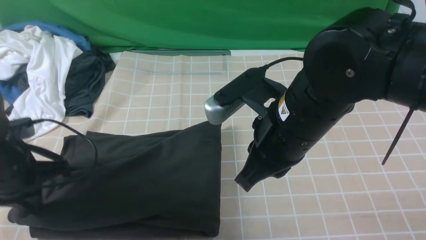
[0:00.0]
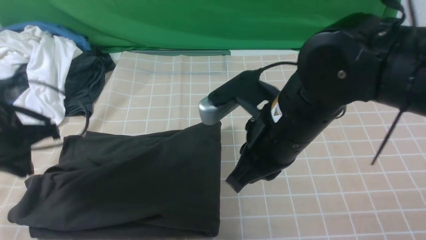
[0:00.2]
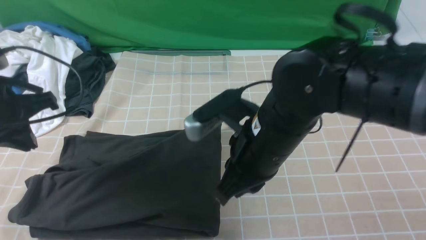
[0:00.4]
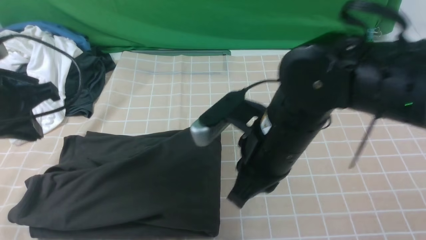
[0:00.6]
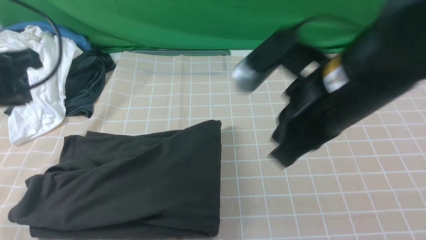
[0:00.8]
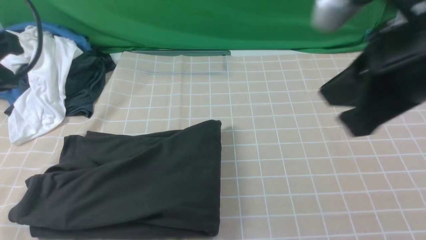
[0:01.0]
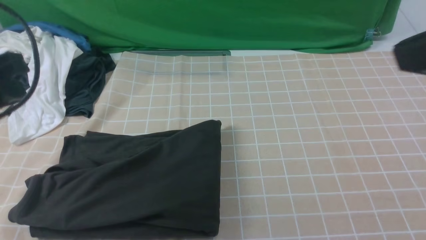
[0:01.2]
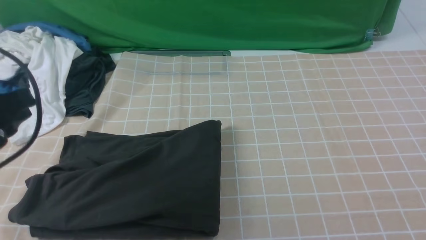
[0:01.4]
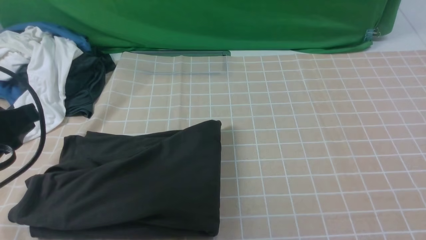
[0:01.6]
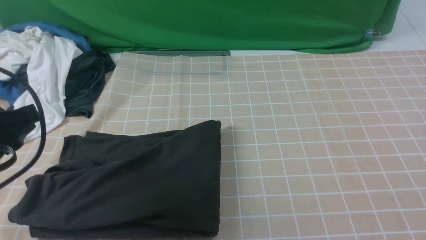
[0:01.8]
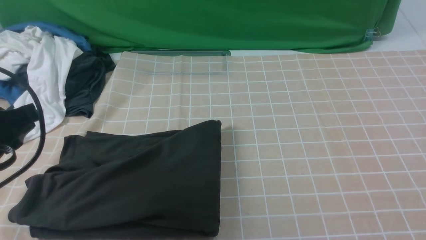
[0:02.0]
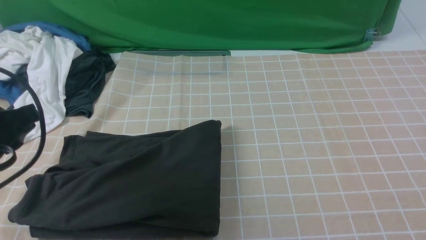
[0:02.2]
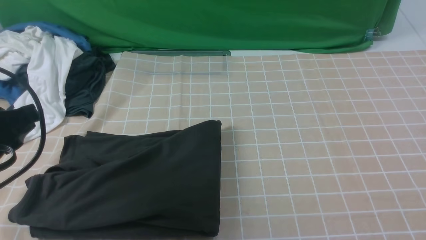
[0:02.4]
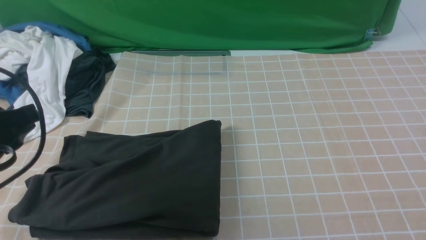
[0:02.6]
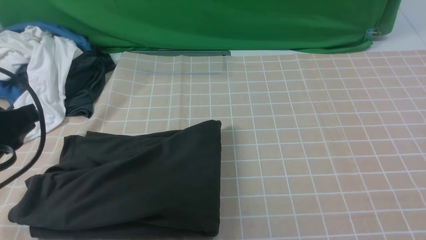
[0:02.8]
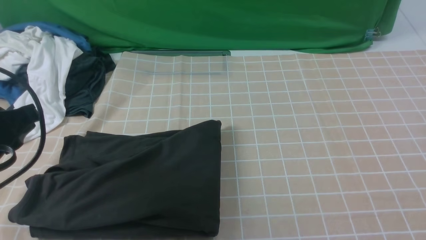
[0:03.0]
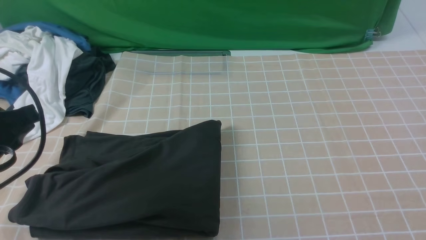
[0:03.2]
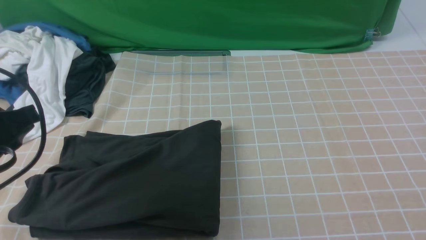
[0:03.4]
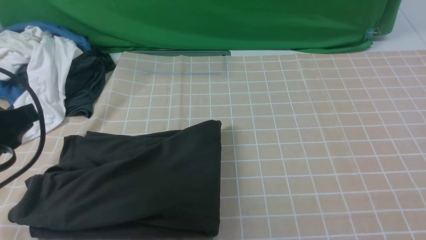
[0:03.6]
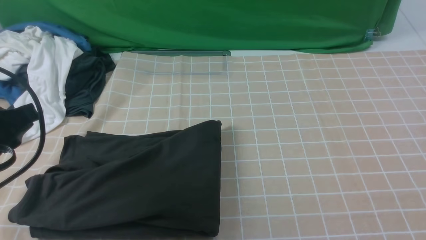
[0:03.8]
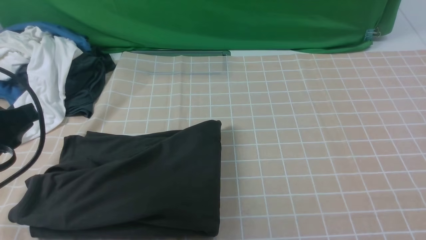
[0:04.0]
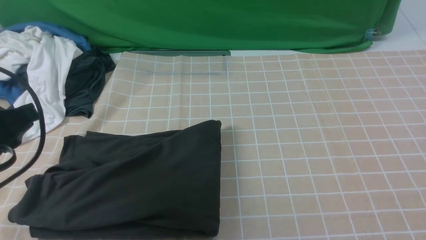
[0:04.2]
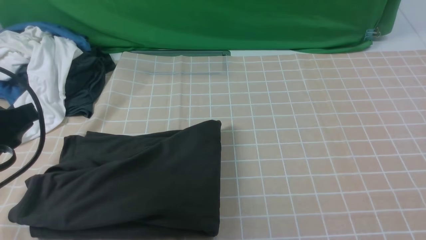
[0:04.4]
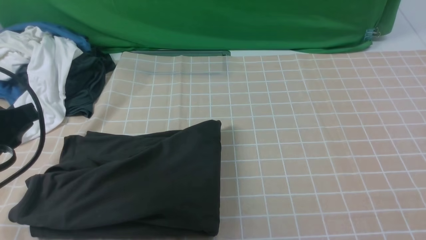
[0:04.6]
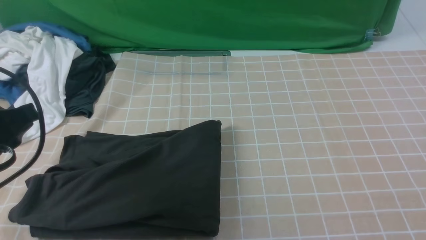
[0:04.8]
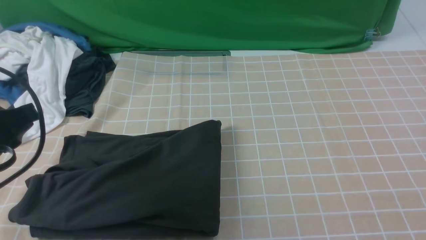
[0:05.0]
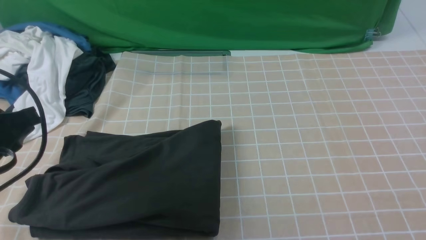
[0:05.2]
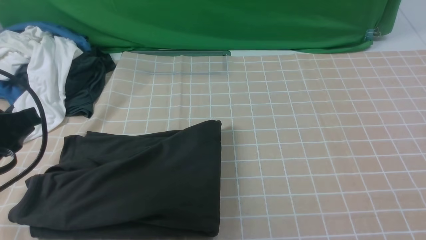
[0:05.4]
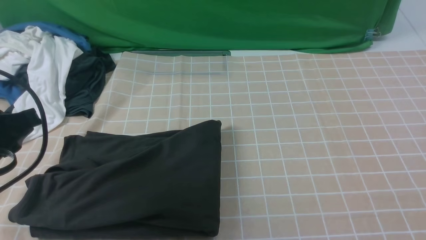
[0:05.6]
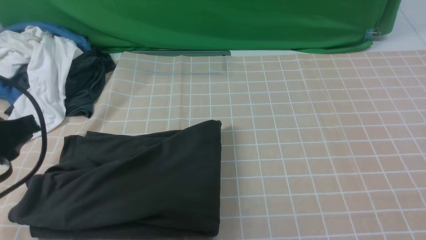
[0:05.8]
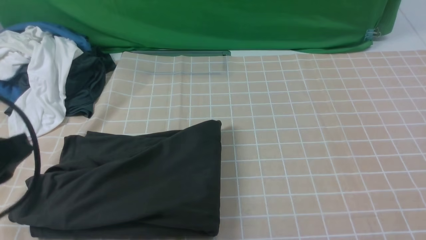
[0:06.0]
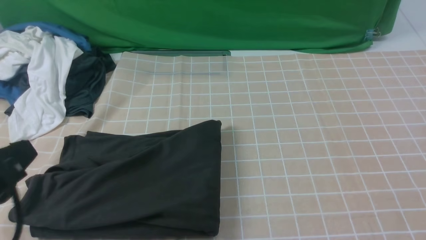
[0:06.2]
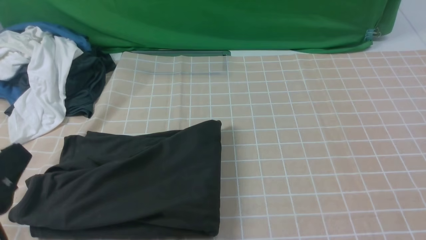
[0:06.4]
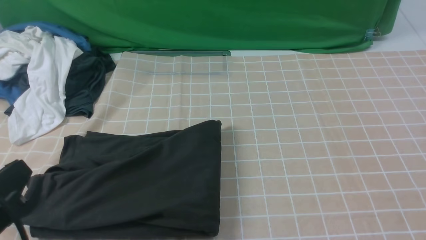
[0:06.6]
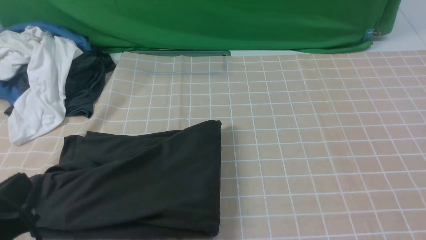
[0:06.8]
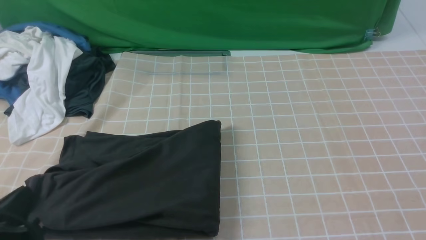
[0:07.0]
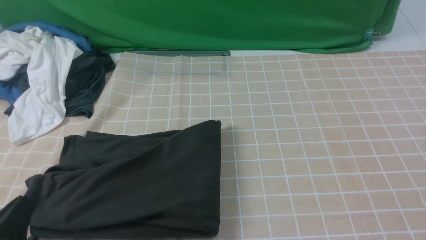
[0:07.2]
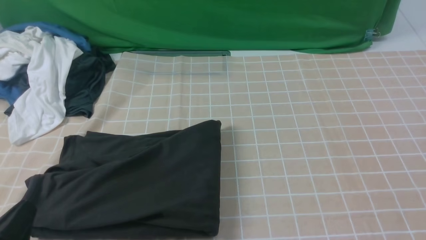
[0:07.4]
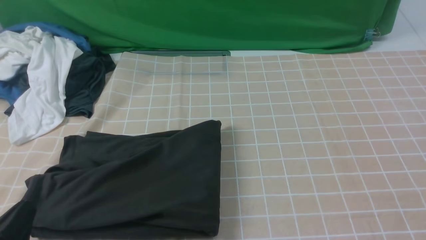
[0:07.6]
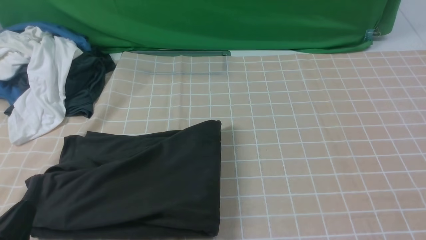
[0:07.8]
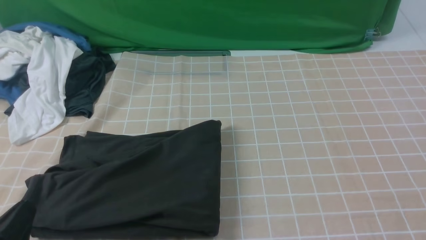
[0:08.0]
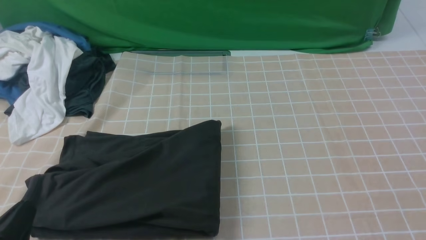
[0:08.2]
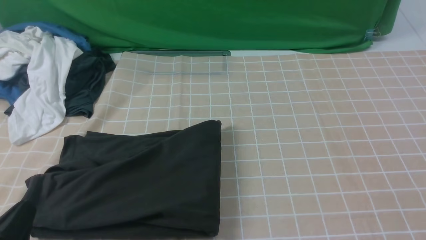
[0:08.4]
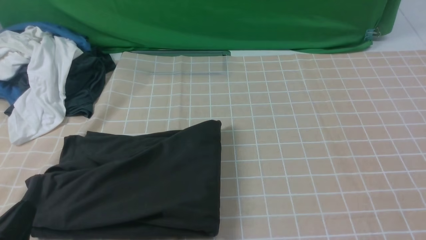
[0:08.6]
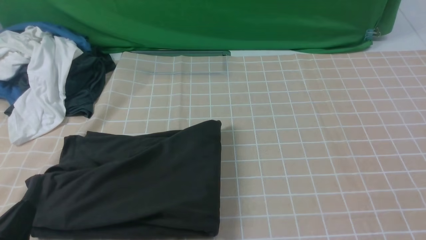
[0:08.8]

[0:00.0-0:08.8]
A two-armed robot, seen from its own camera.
0:00.0 to 0:01.4: The left gripper heads upward and backward, covering roughly 15 cm; the right gripper heads to the right, backward and upward, covering roughly 30 cm.
0:04.4 to 0:05.8: The grippers move only a little.
0:05.8 to 0:07.4: The left gripper heads downward and backward, covering approximately 15 cm.

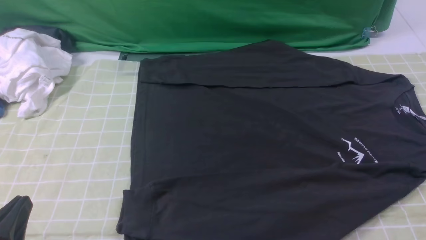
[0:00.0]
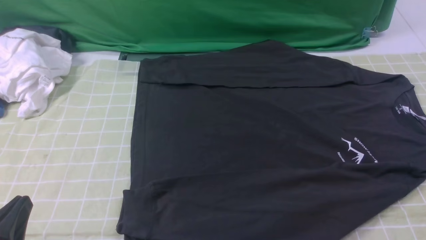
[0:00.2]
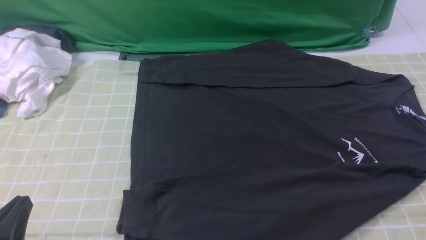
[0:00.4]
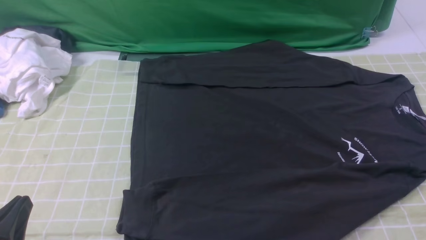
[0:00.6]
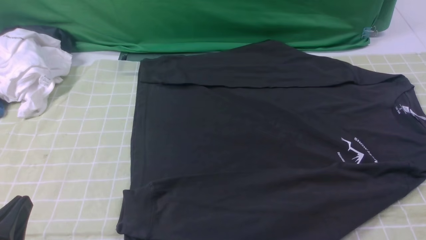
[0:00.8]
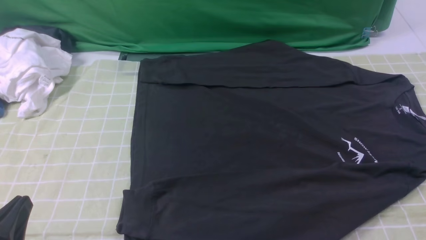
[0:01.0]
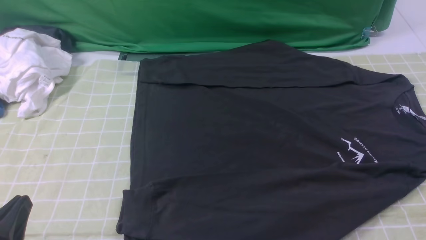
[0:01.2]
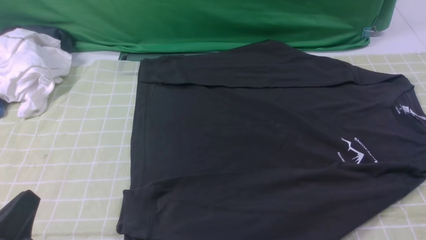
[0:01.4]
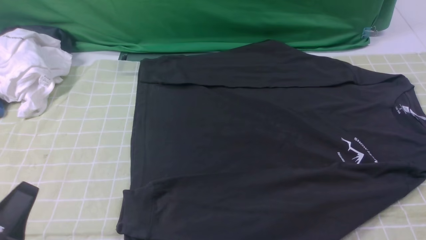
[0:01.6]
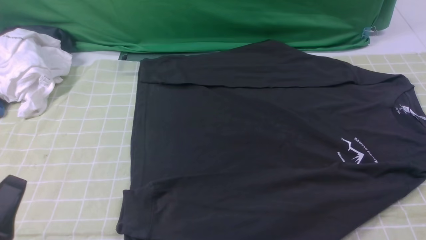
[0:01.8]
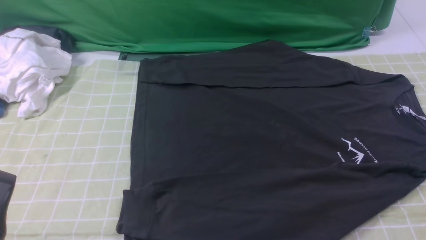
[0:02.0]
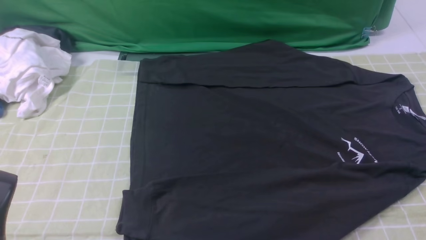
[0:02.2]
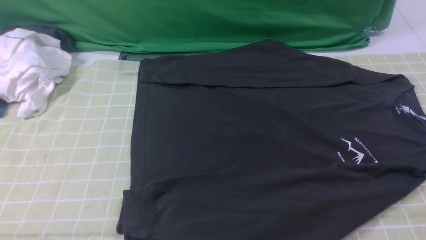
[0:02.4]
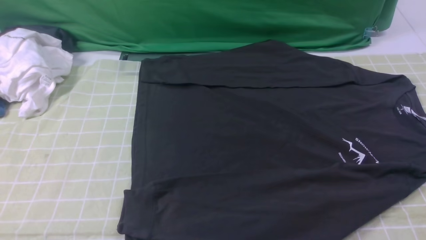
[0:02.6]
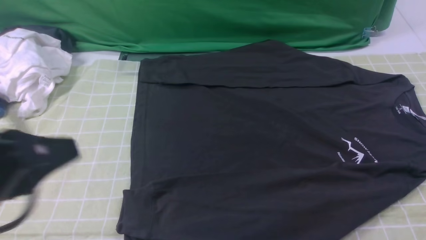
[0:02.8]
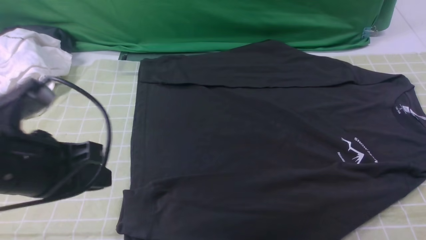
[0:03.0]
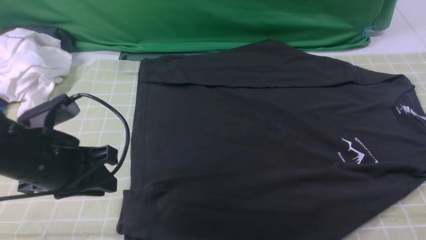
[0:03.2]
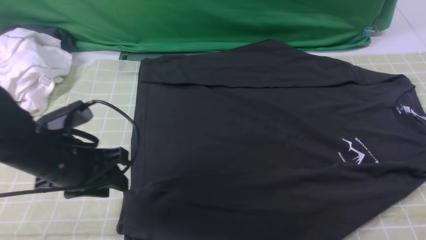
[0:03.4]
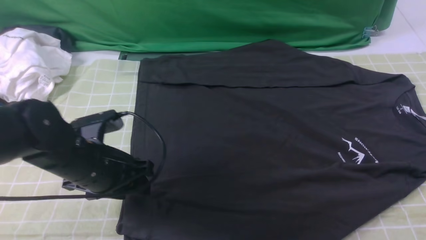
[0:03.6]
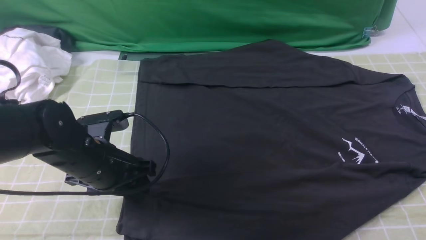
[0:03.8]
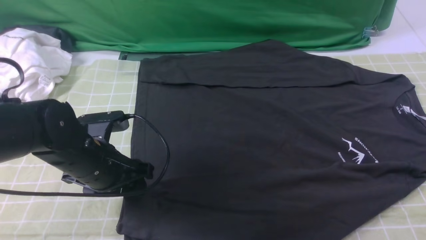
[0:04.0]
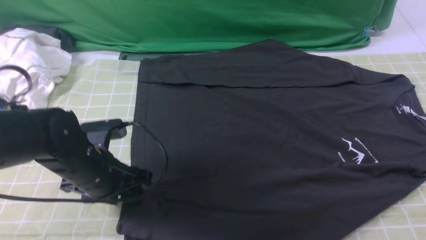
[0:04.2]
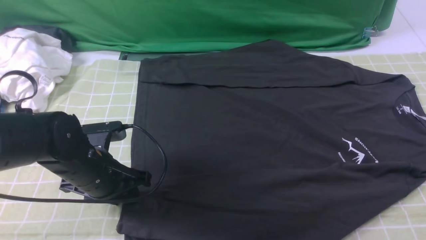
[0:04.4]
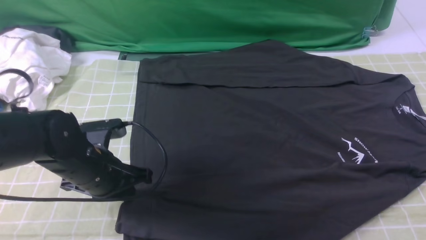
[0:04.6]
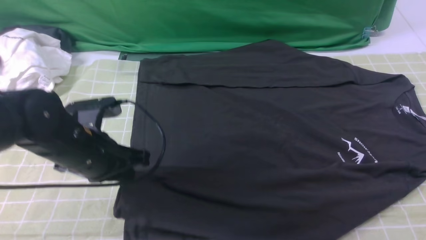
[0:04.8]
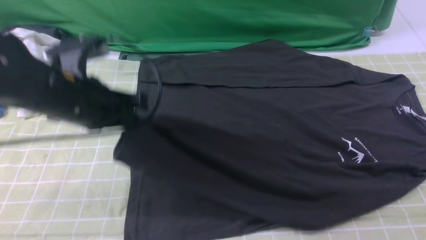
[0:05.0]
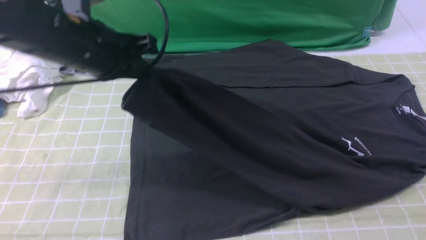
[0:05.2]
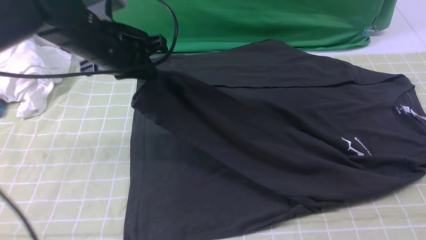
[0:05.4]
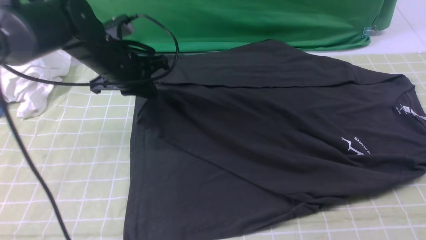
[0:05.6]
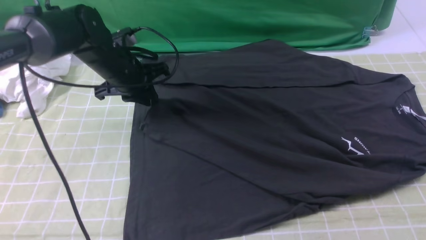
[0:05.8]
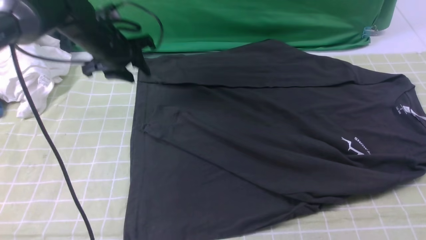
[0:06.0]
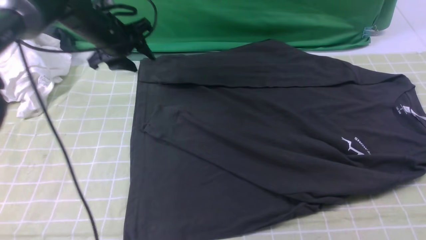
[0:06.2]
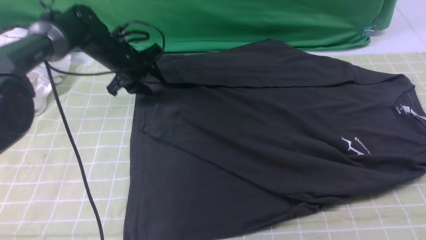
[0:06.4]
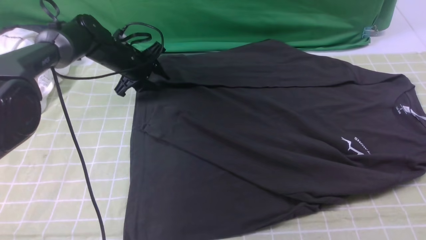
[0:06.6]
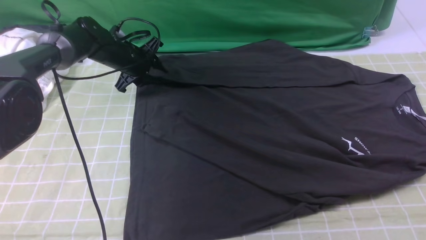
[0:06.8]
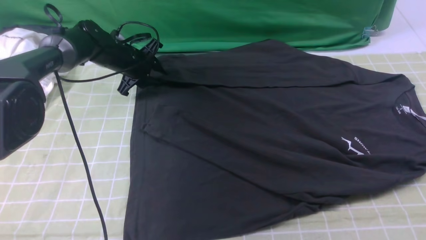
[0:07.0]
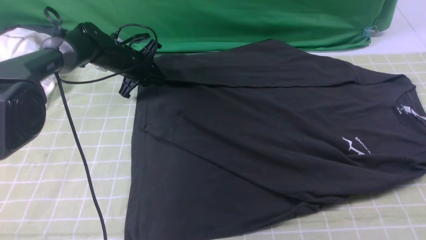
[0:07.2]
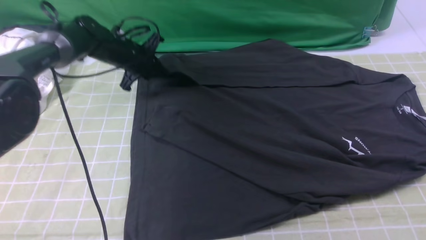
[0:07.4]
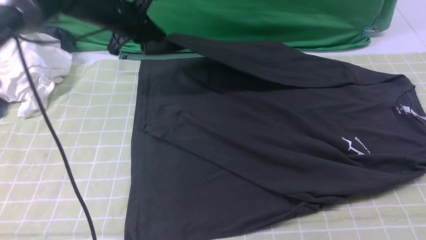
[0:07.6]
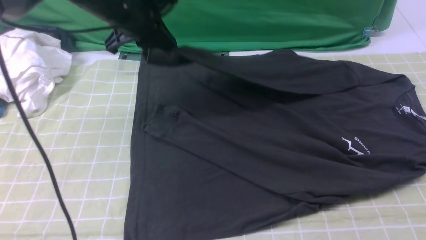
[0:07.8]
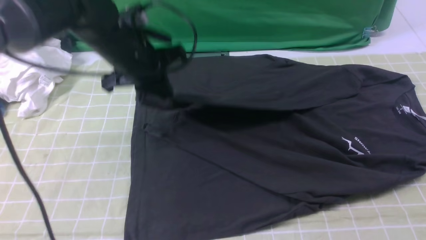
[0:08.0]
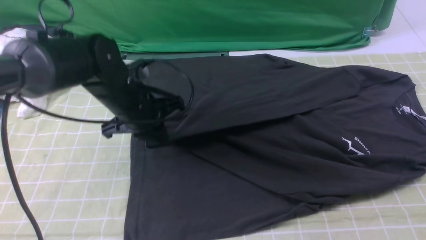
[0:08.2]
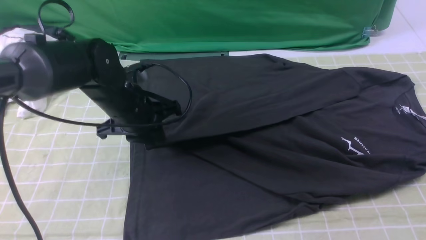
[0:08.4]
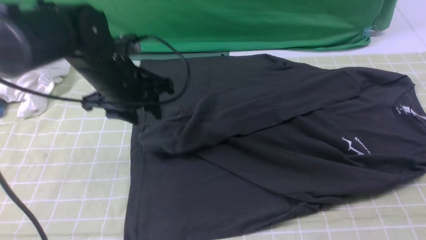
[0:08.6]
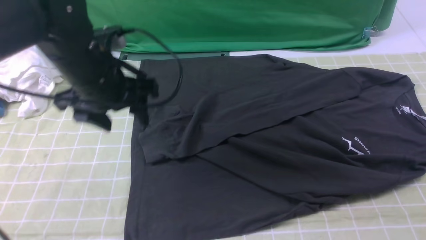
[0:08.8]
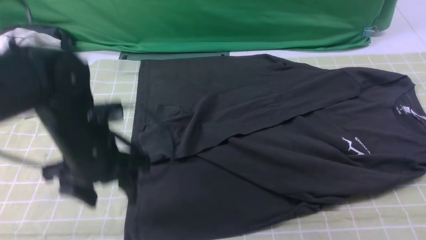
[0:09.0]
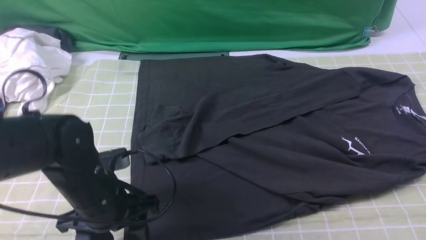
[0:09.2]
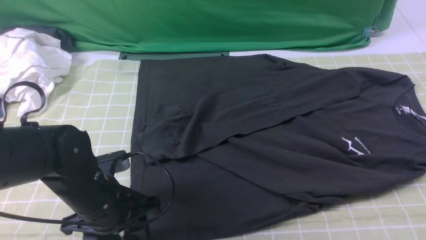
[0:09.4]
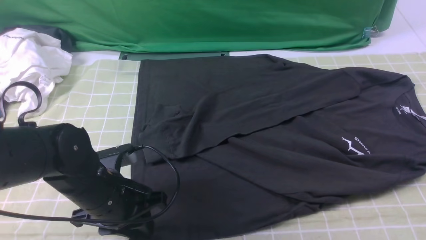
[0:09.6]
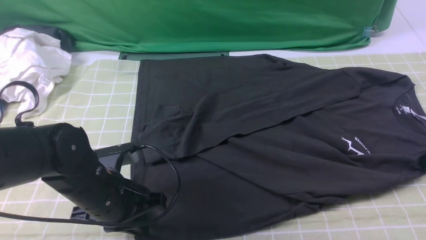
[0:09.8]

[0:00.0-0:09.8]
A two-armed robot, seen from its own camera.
Step, 0:00.0 to 0:04.6: use the left arm to clamp the cuff closest to it.
Step, 0:04.8 to 0:05.8: use the left arm to drag and place the cuff at the centered position on the left edge of the fabric.
Step, 0:06.2 to 0:07.2: use the left arm to clamp the cuff farthest from it.
Step, 0:07.4 to 0:08.6: use the left arm to drag and drop the cuff onto the cuff closest to the left arm.
0:01.4 to 0:02.8: The left gripper moves upward and forward, about 15 cm.
0:02.8 to 0:04.2: The left gripper travels downward and forward by approximately 20 cm, and opens its fingers.
0:04.2 to 0:05.6: The left gripper moves forward and upward, roughly 15 cm, and closes up.
0:05.6 to 0:07.0: The left gripper travels forward and downward by roughly 15 cm.
0:07.0 to 0:08.4: The left gripper heads backward and upward, covering some 20 cm, and closes, then reopens.
0:08.4 to 0:09.8: The left gripper moves backward and downward, some 15 cm, and opens, then closes again, while the right gripper shifts by roughly 5 cm.
